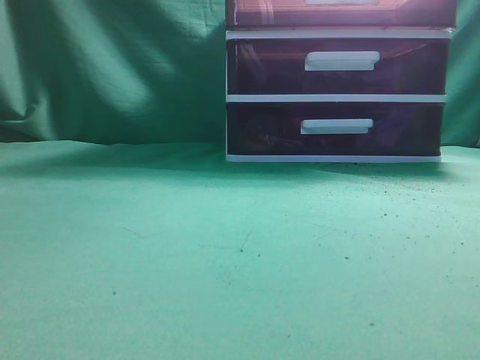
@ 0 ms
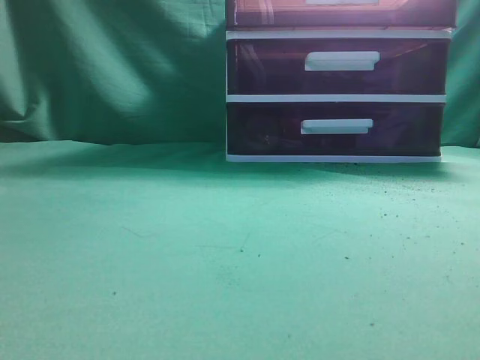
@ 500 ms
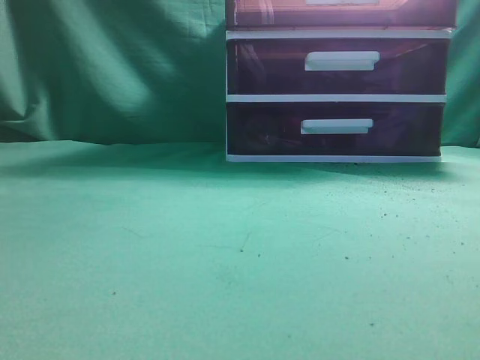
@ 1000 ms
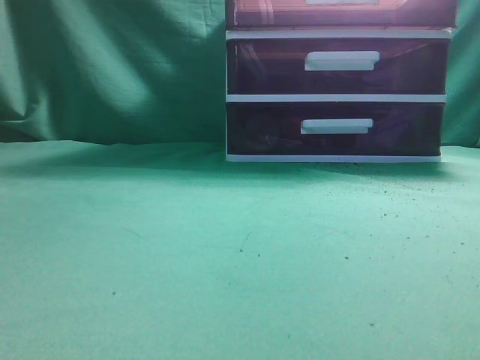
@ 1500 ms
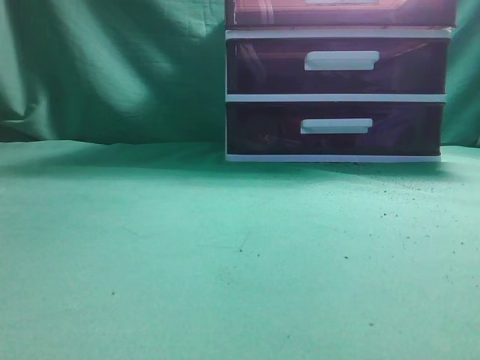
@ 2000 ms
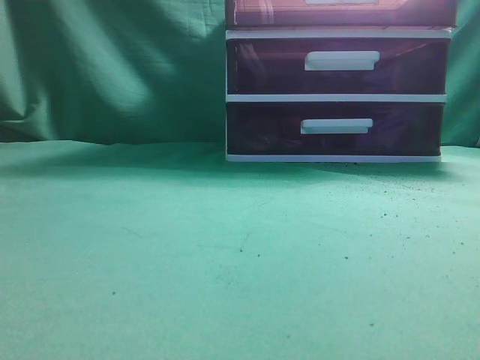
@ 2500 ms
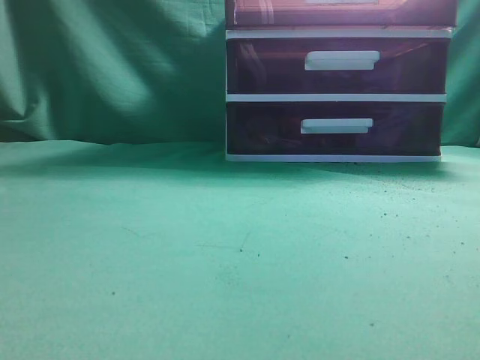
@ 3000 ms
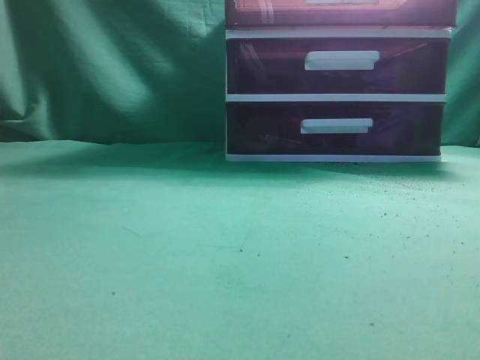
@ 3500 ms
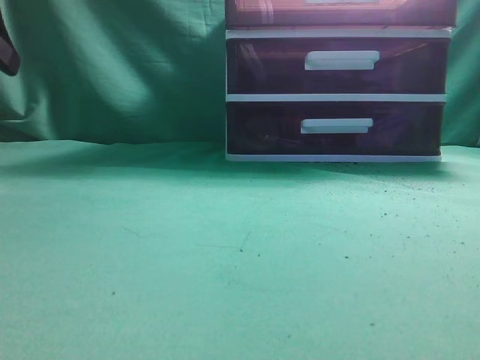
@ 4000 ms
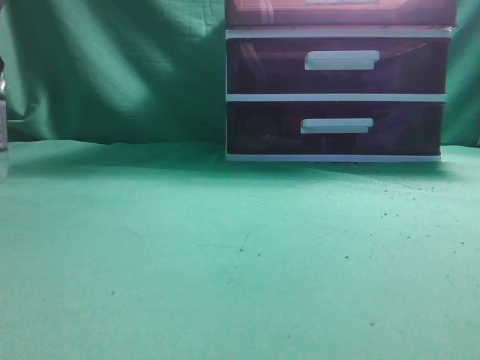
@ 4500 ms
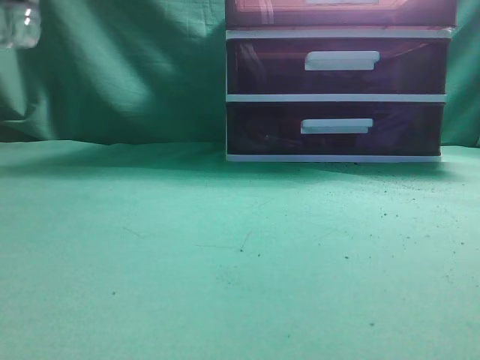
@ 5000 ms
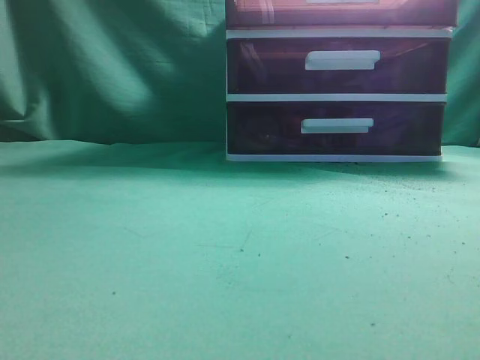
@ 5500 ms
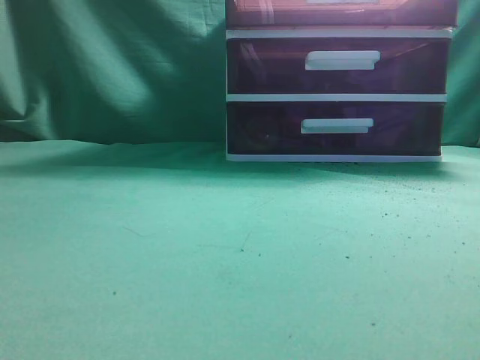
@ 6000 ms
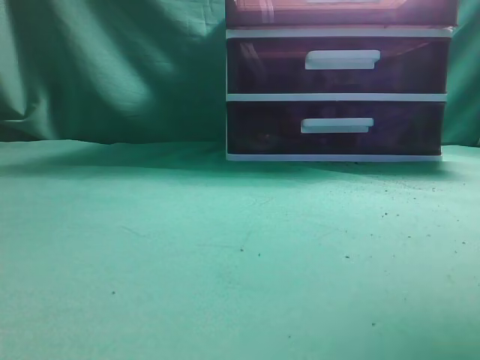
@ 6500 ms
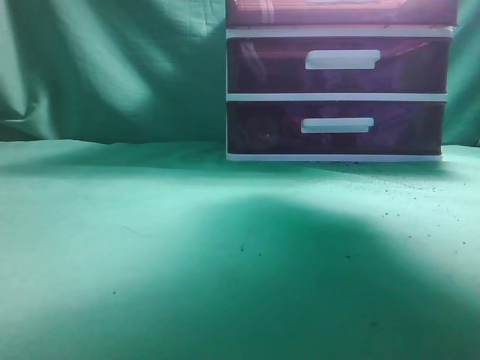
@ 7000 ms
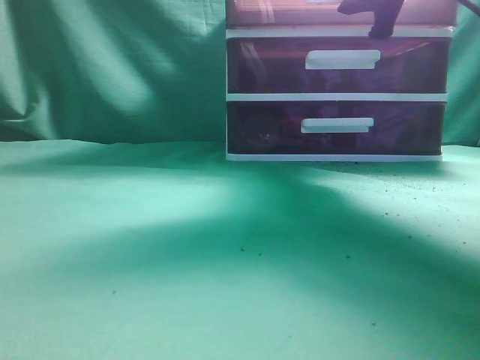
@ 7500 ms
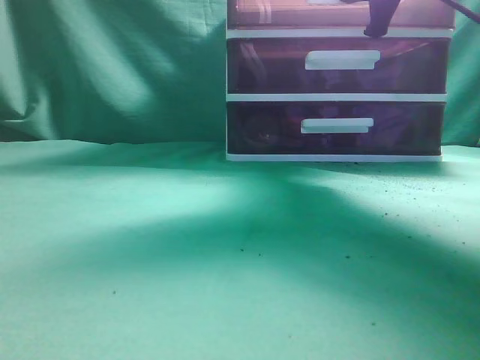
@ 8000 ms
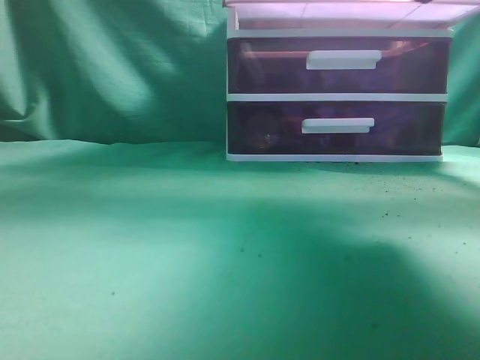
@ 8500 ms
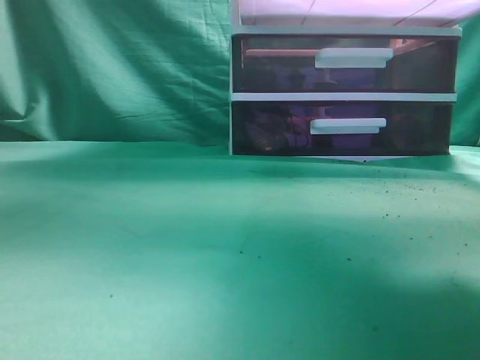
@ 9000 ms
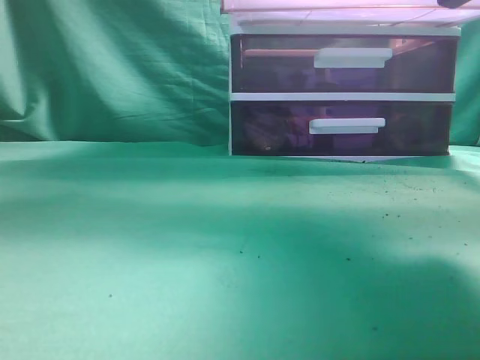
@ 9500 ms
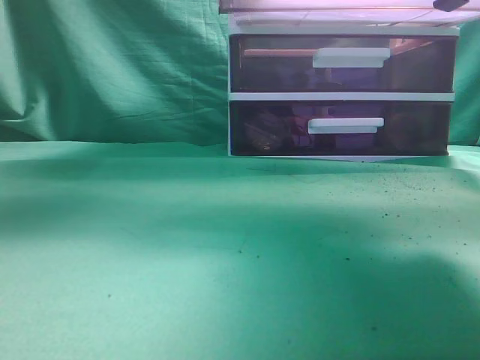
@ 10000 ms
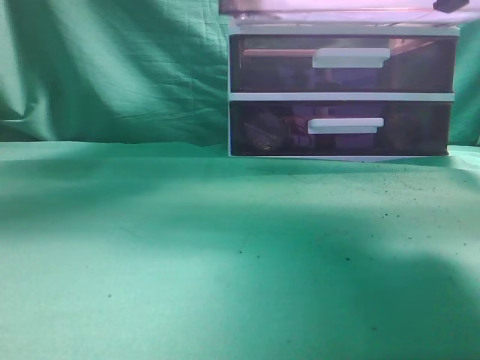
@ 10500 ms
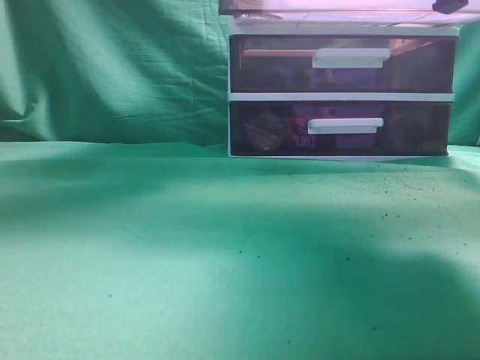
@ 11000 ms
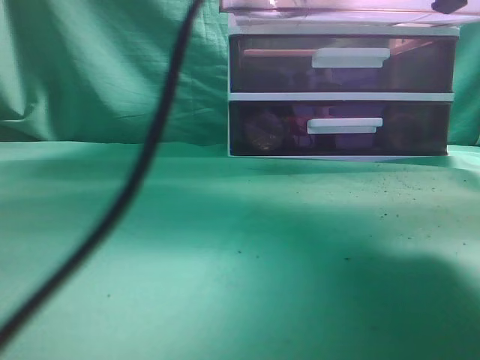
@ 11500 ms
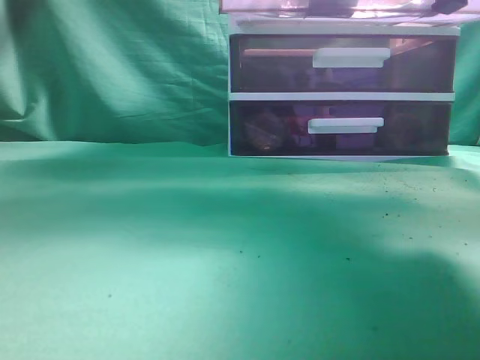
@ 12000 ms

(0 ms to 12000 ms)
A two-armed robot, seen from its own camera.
Task of the whole recording: place the water bottle into the drawer.
Step, 0 ms - 8500 ms: Open the drawer.
Step, 9000 ms - 12000 ms: Place the water bottle inside the drawer.
6000 ms - 8000 ms: The right gripper goes approximately 20 cm forward, to the left and downward, and opens, then closes once more.
8000 ms - 10000 ms: The right gripper heads backward, covering roughly 5 cm. Meanwhile the left gripper goes about 25 cm forward and to the right.
10000 ms - 12000 ms: The left gripper moves backward, upward and to the left, approximately 15 cm, and closes up.

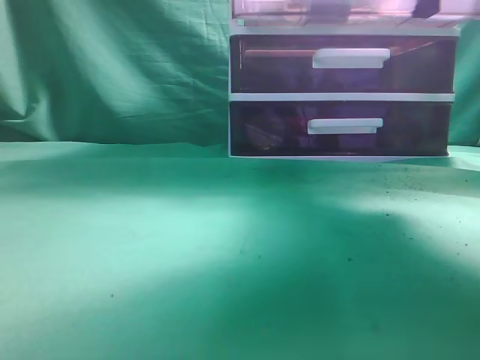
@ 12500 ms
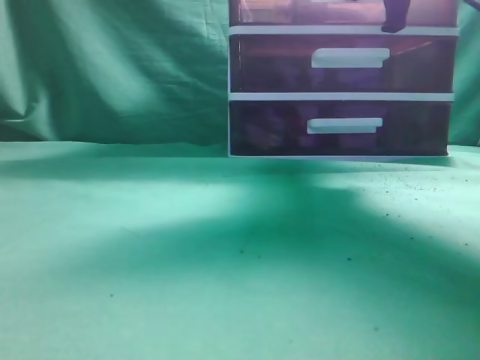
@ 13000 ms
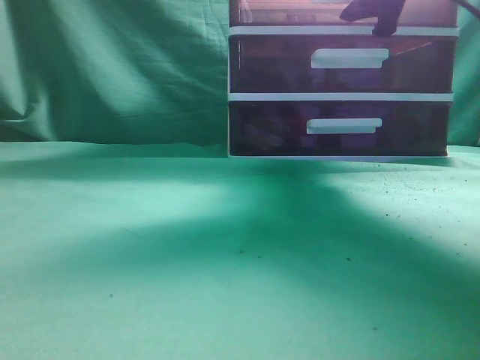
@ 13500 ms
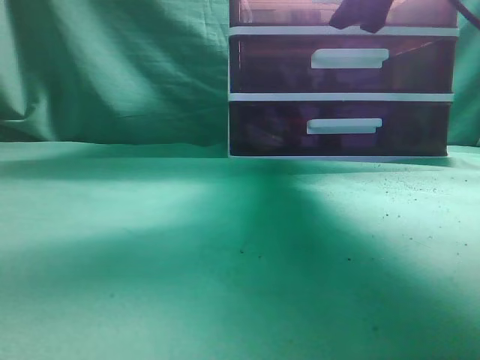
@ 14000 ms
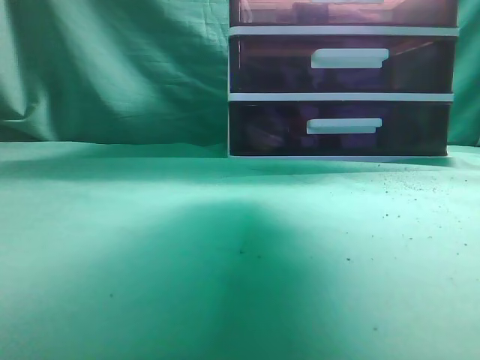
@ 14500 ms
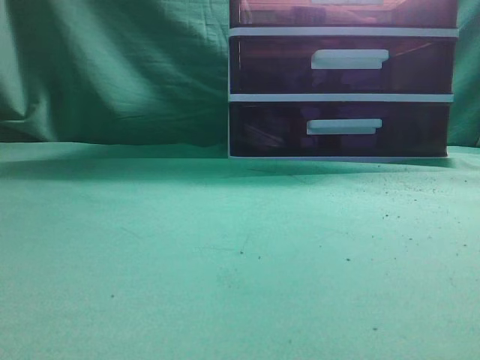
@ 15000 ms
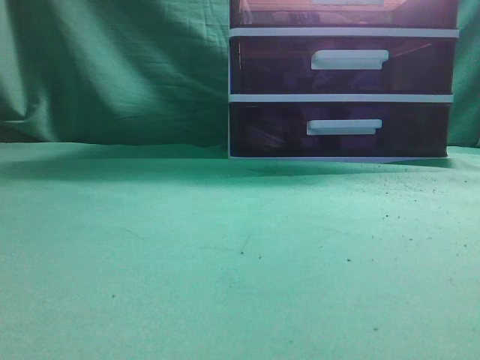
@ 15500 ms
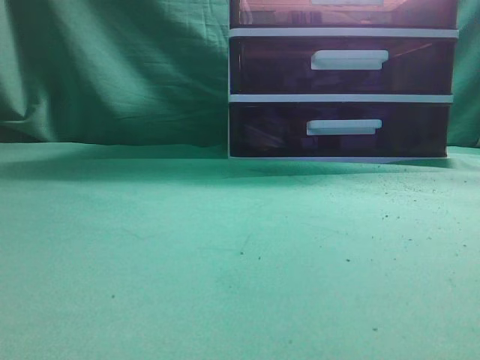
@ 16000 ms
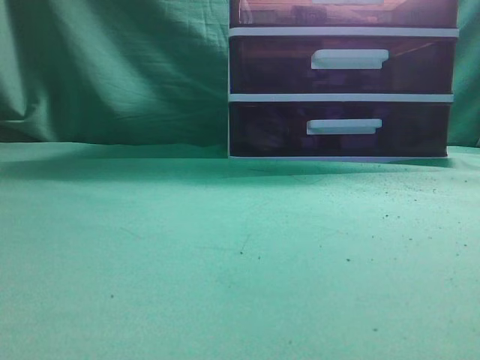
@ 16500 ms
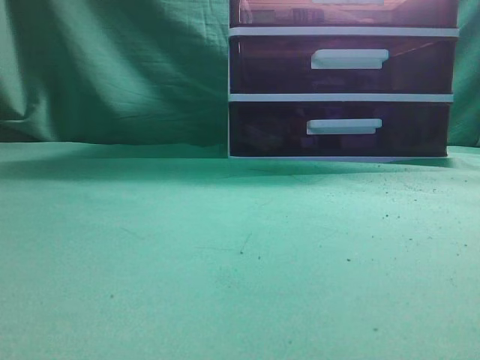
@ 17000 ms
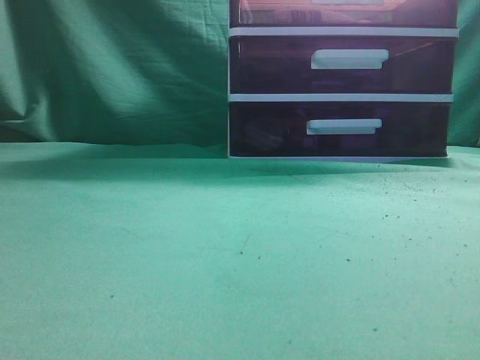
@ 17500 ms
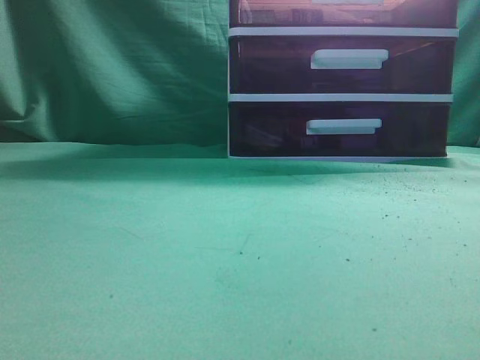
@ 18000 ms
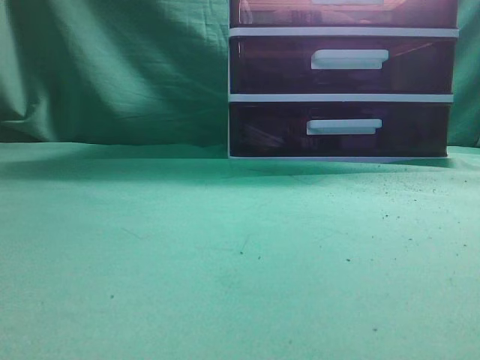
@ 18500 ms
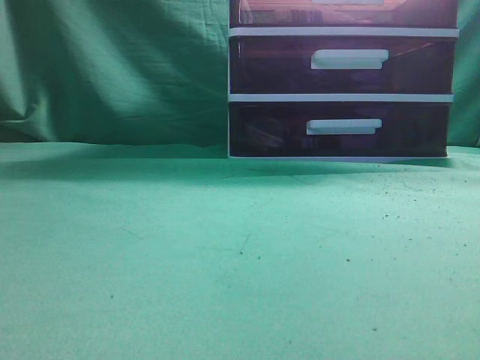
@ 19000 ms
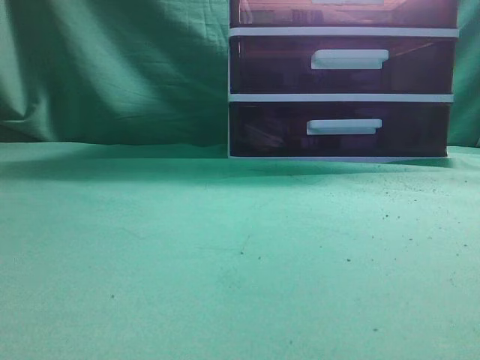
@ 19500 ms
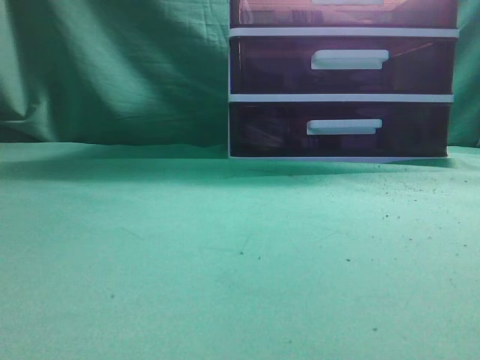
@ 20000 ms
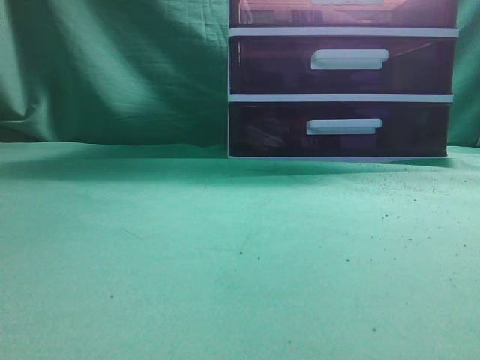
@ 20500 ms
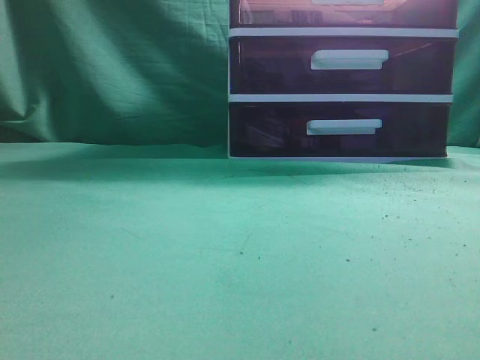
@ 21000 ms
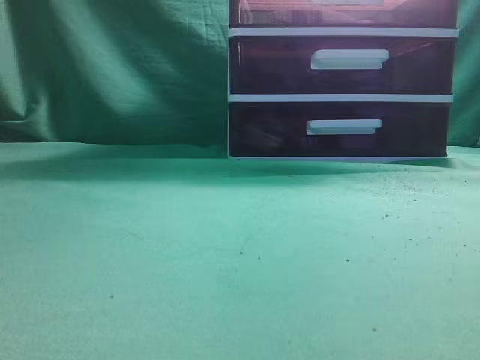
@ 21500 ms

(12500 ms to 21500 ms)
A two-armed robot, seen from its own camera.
Task of the whole recording: place the water bottle into the drawer.
Step, 12500 ms - 14000 ms: Close the drawer.
12500 ms - 14500 ms: The right gripper moves backward and upward, approximately 20 cm, and opens, then closes once more.
14500 ms - 17000 ms: The right gripper moves backward, downward and to the right, some 30 cm; the left gripper goes roughly 25 cm downward.
